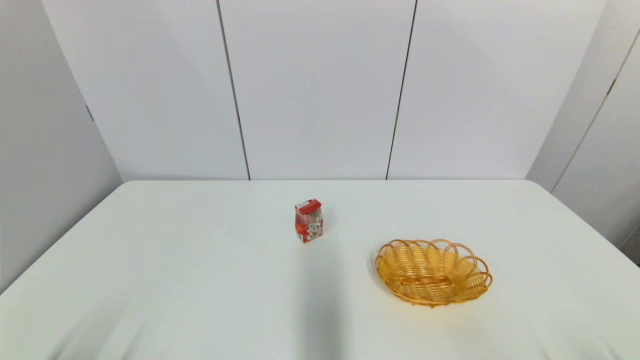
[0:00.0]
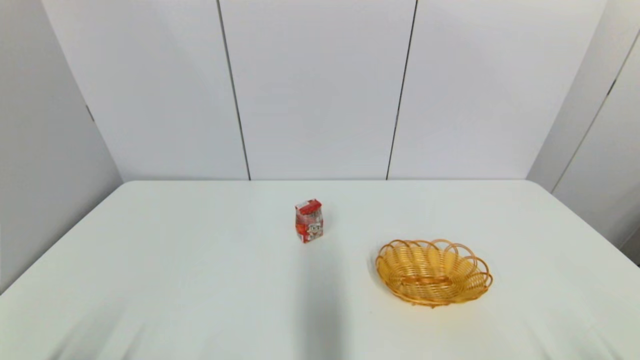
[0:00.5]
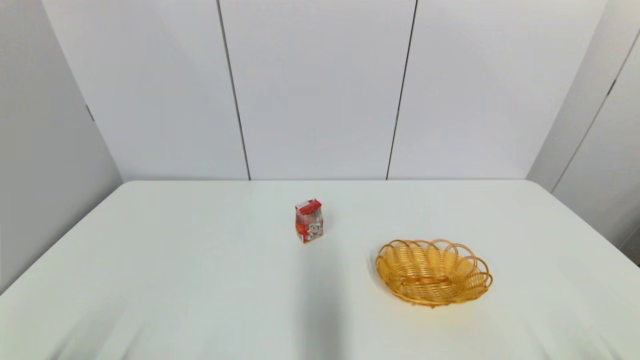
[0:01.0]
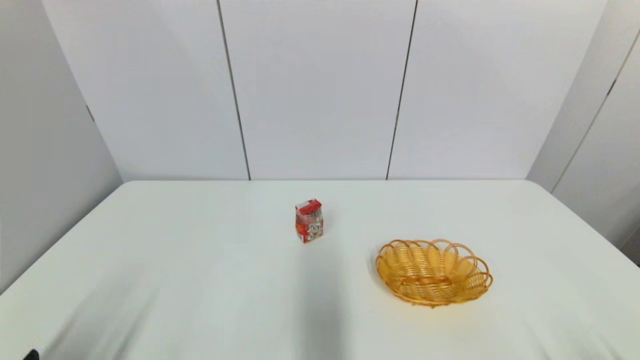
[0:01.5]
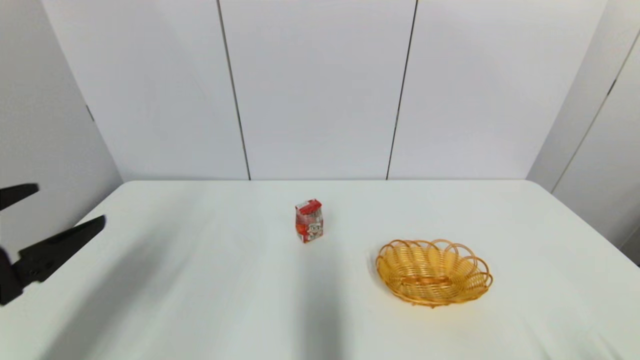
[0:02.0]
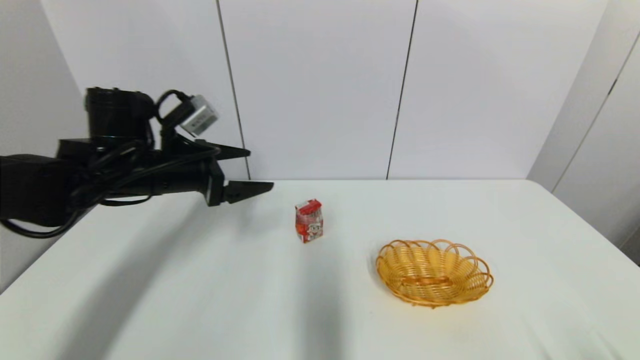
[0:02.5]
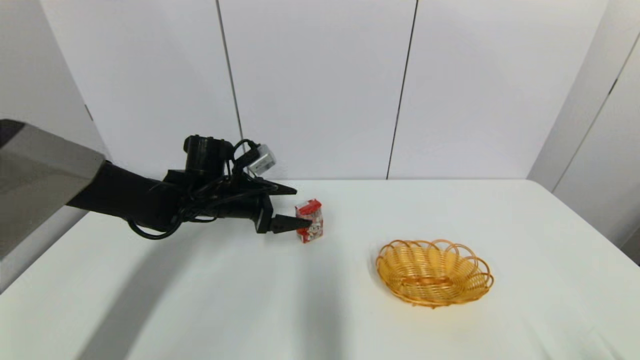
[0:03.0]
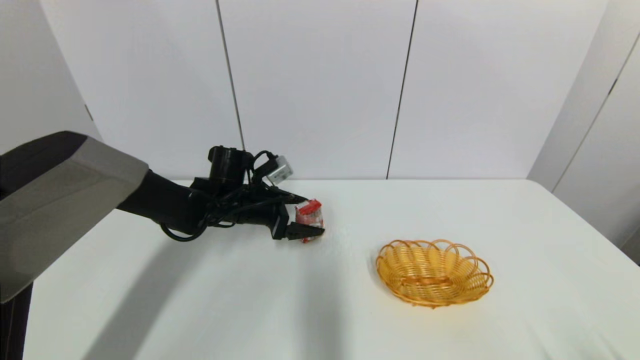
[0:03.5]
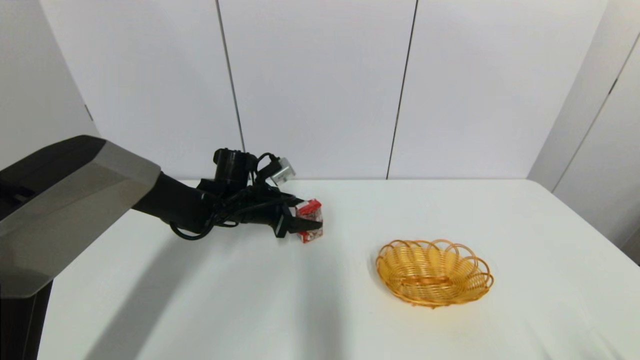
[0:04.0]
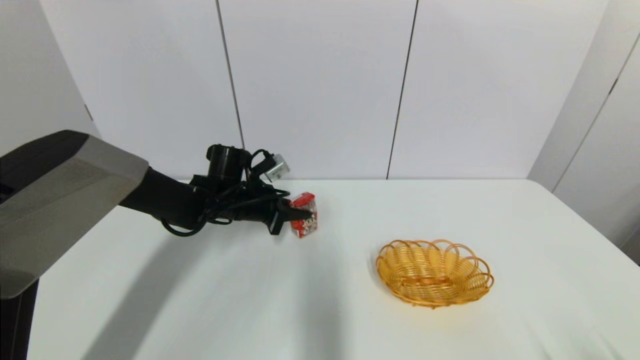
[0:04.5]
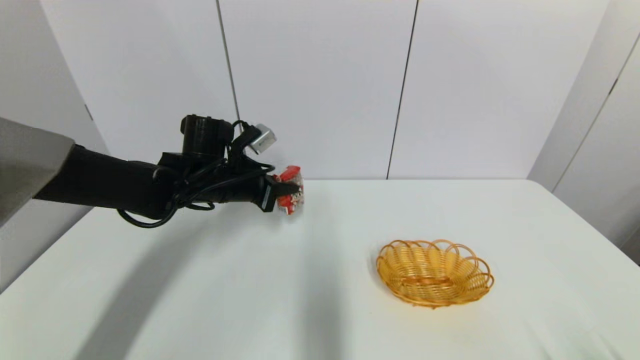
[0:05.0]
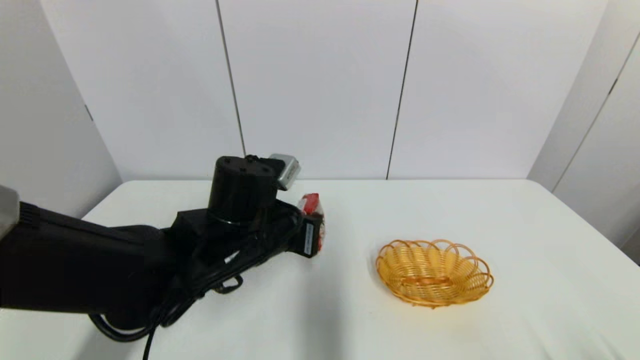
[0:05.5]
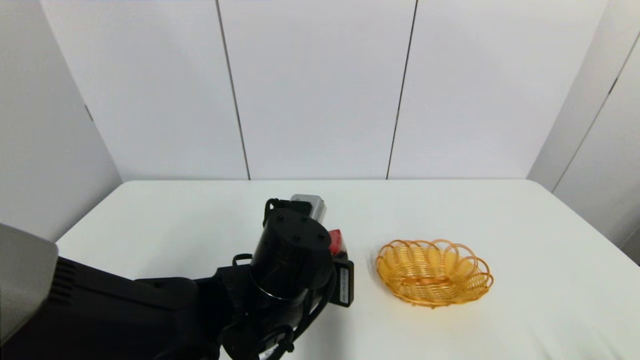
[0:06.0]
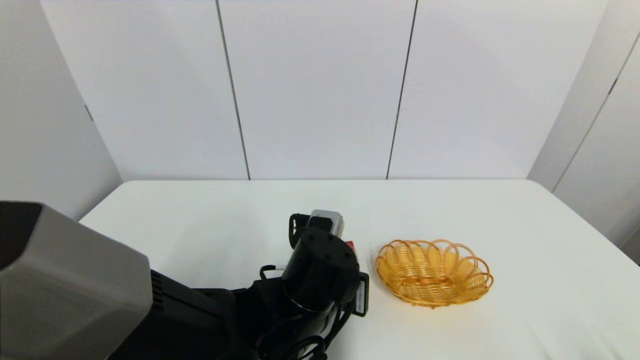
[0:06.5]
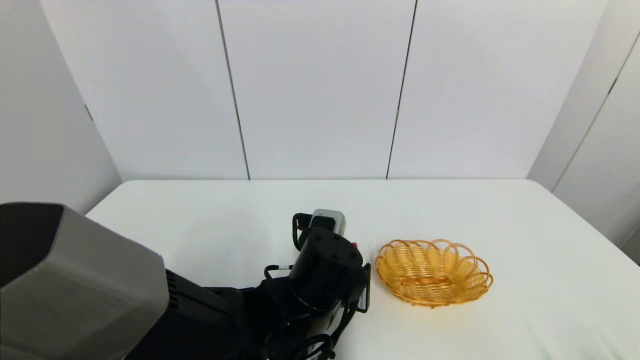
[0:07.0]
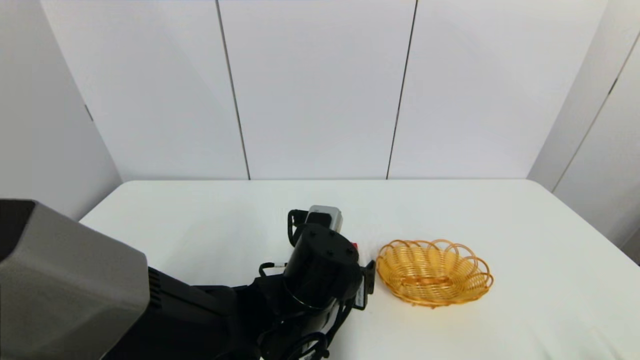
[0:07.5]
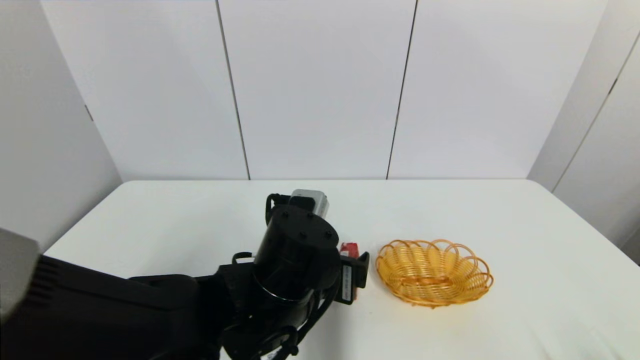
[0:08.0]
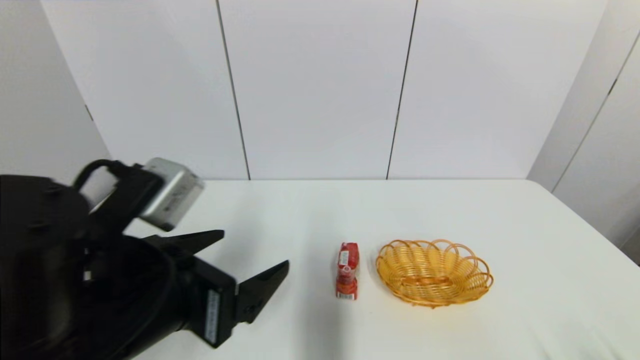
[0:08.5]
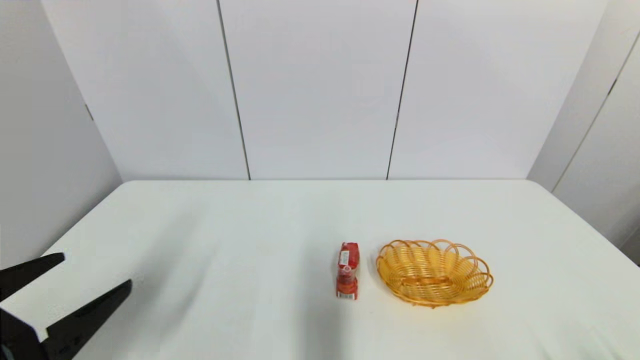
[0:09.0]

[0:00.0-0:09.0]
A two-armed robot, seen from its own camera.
Step, 0:02.0 to 0:04.0: Grasp the wangzai milk with left gripper.
Step, 0:04.5 to 0:06.5: Place the wangzai milk on the table with left gripper.
0:00.0 to 0:02.0: The left gripper travels upward and forward by about 20 cm.
0:02.0 to 0:04.5: The left gripper goes about 35 cm forward, to the right and downward, and closes up.
0:04.5 to 0:07.0: The left gripper heads backward and to the right, covering approximately 25 cm, and opens its fingers.
0:07.0 to 0:09.0: The left gripper travels to the left and backward by roughly 30 cm, and opens its fingers.

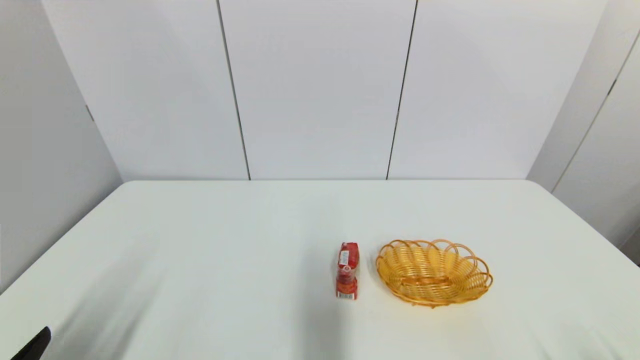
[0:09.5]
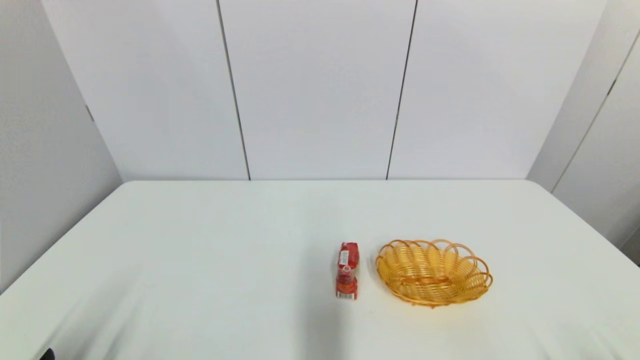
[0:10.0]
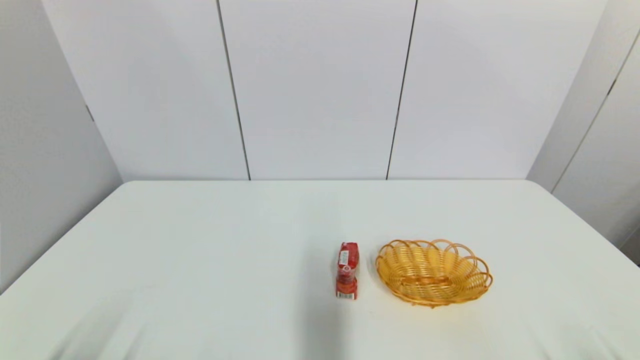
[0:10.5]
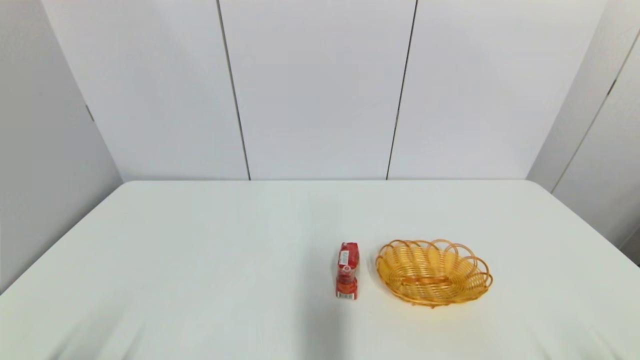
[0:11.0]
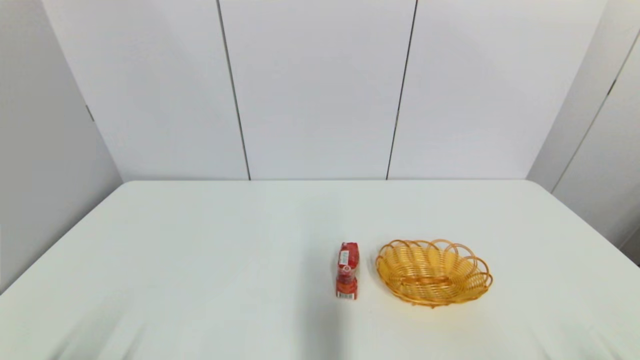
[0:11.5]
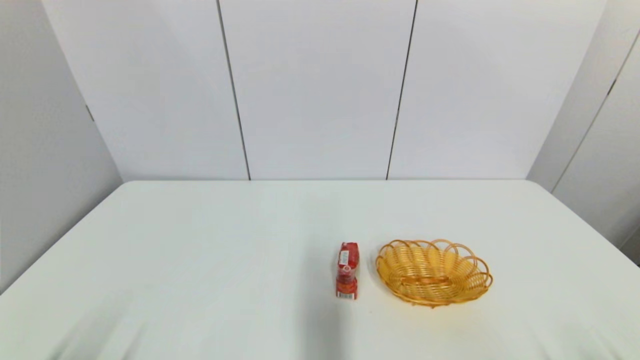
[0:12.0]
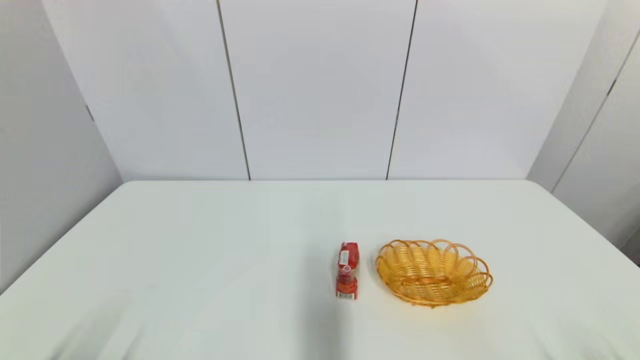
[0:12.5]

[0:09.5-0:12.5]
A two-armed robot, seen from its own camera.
0:09.5 to 0:11.0: The left gripper shifts some 5 cm downward.
0:11.0 to 0:12.5: Both grippers stay put.
